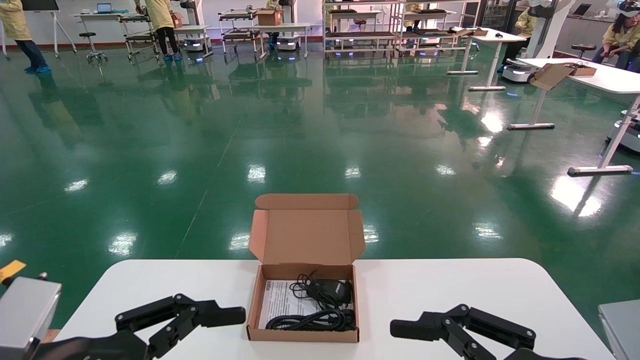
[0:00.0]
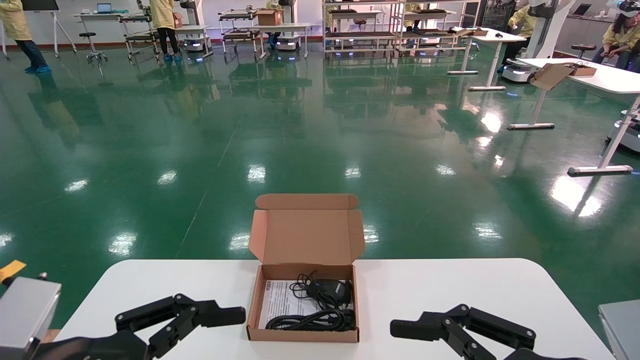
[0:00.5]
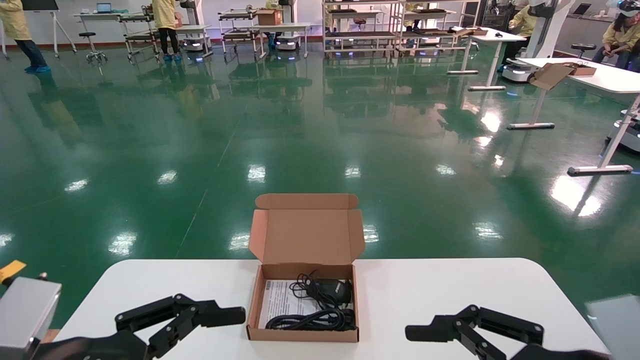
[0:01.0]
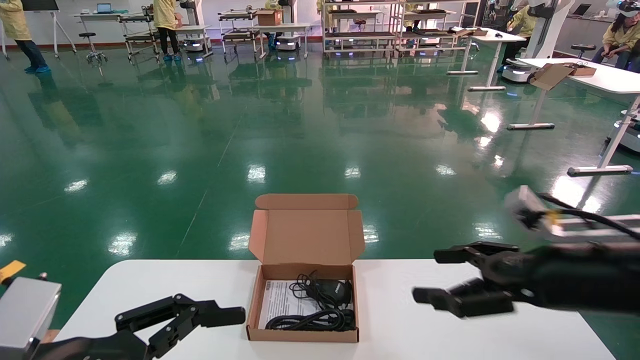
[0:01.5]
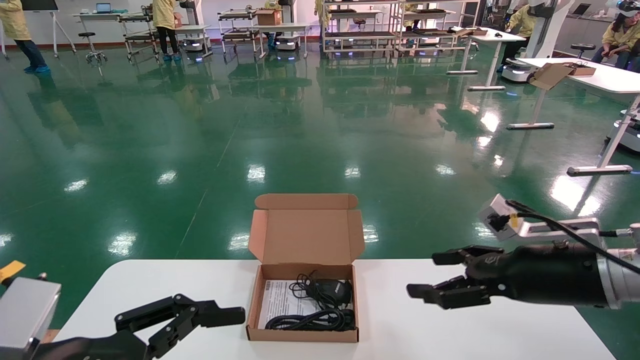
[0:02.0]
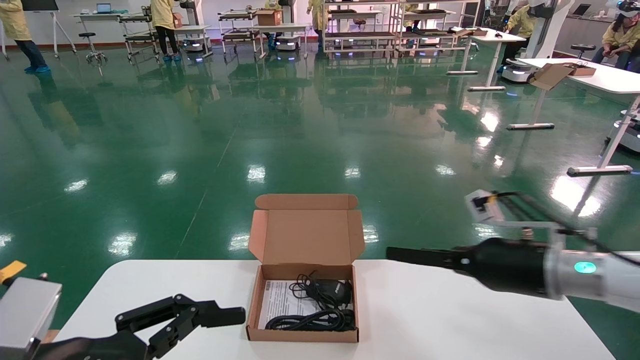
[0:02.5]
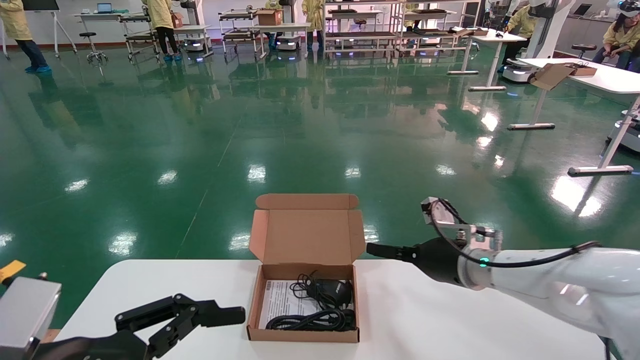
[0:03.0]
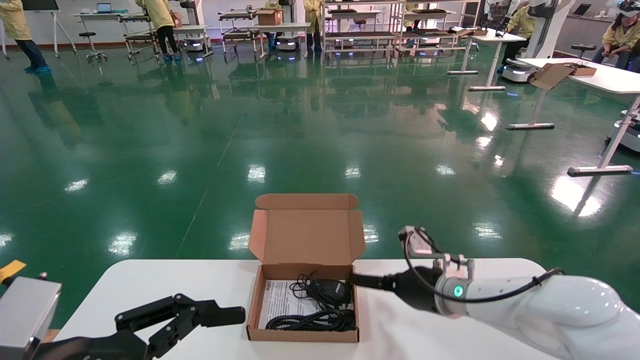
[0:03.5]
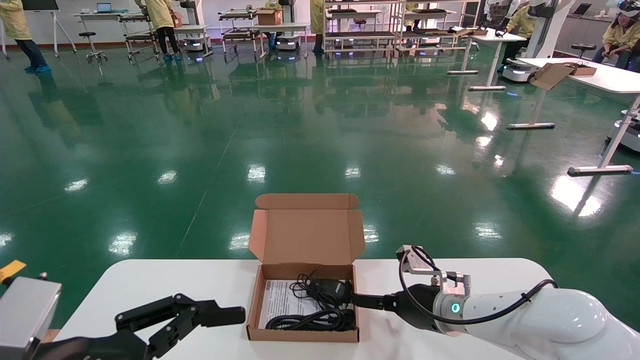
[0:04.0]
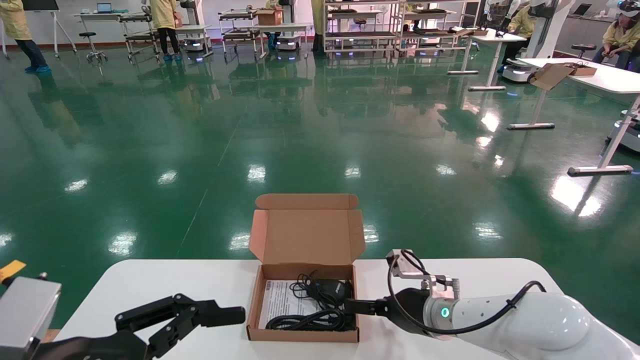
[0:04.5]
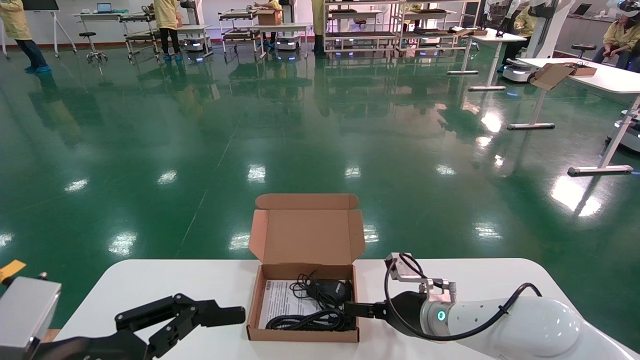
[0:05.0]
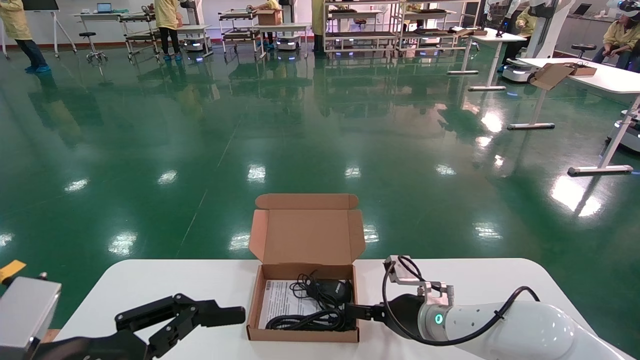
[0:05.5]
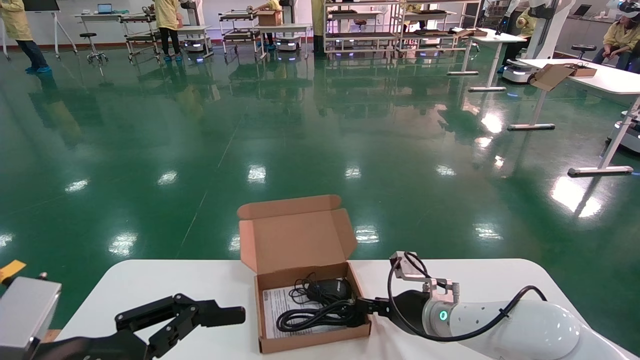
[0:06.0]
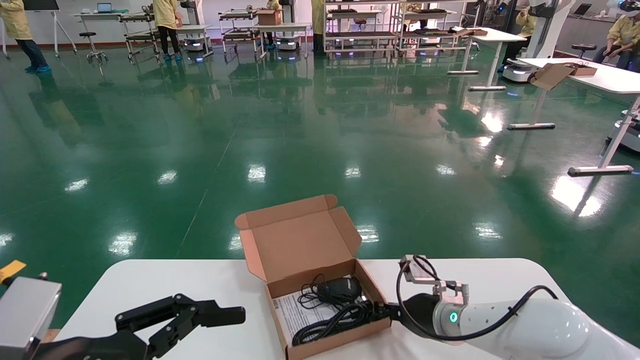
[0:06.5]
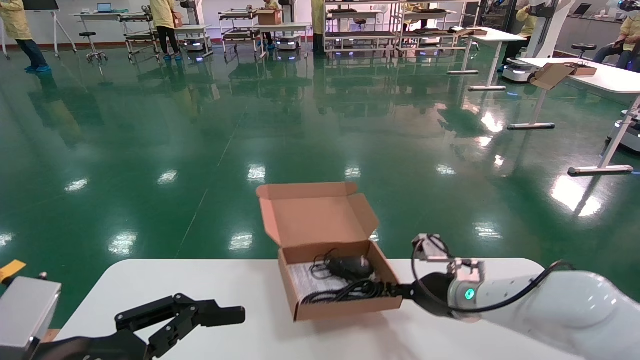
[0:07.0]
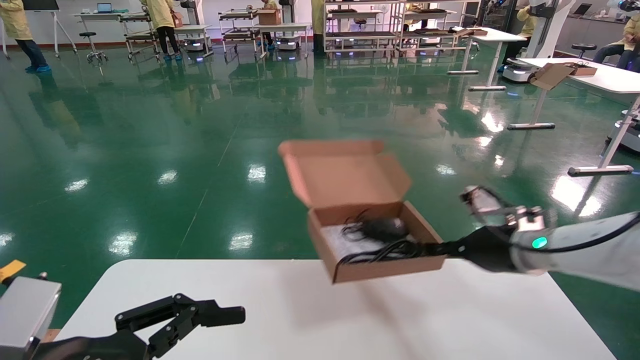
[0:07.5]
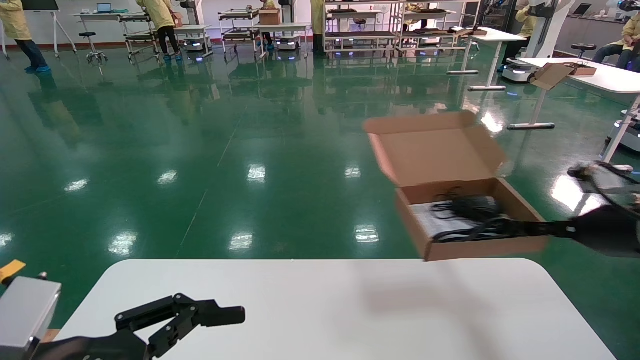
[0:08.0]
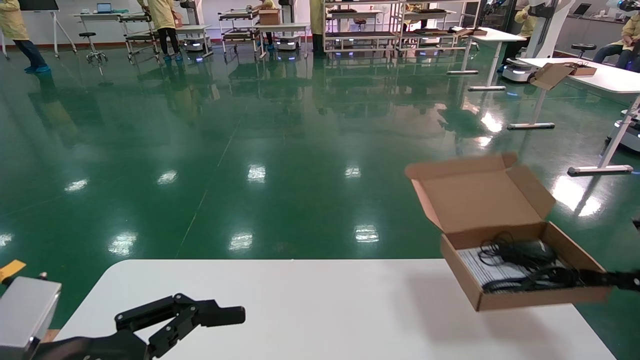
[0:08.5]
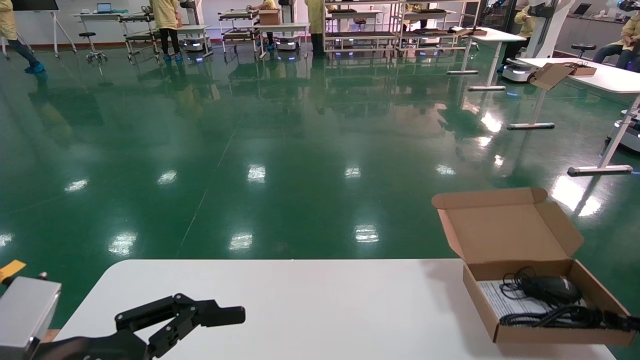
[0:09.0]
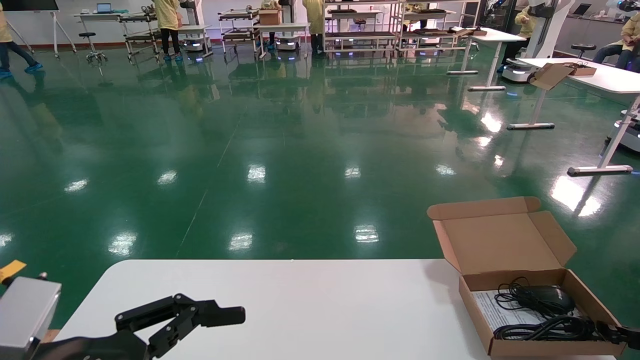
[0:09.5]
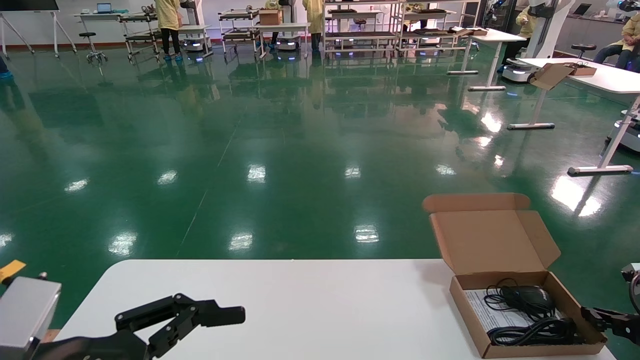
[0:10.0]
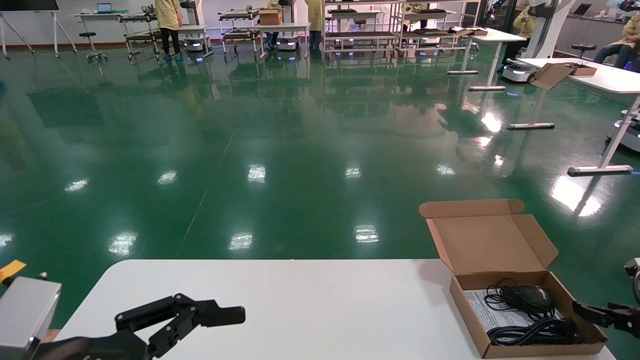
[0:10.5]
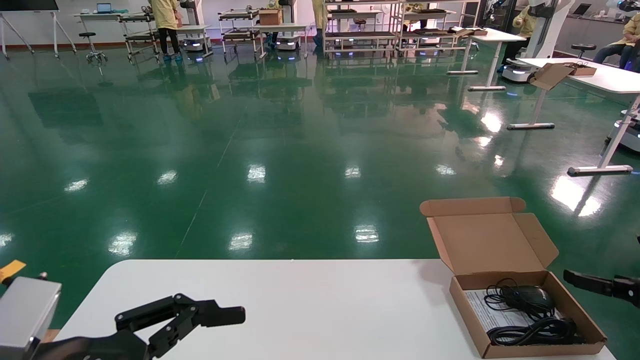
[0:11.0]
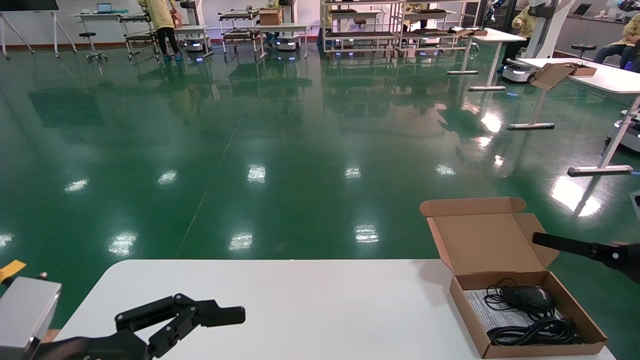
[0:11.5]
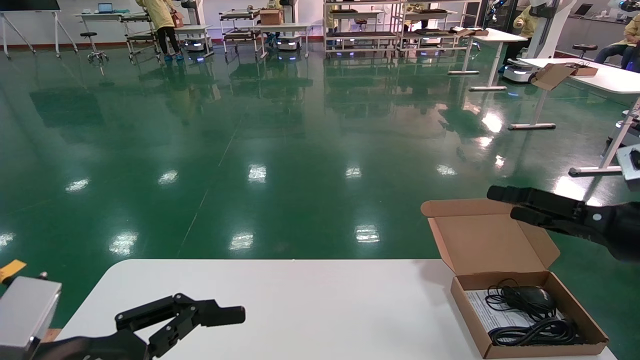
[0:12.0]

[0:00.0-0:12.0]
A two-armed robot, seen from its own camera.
Task of the whole recording: move the position of the storage box with accessories on the table.
Step, 0:01.5 to 0:06.5: Grab and pick up the open mouse box from the accessory packaging area.
Step, 0:07.0 to 0:10.5: Place the open mouse box onto the operation table.
0:00.0 to 0:02.0: The right gripper shifts some 15 cm forward.
0:02.0 to 0:04.0: The right gripper goes roughly 20 cm to the left, forward and downward.
0:04.0 to 0:06.0: The right gripper closes up.
0:06.0 to 0:08.0: The right gripper shifts roughly 30 cm to the right and upward, and closes.
0:08.0 to 0:10.0: The right gripper goes approximately 15 cm downward and to the right.
0:10.0 to 0:12.0: The right gripper is displaced upward, to the left and backward by roughly 20 cm, and opens.

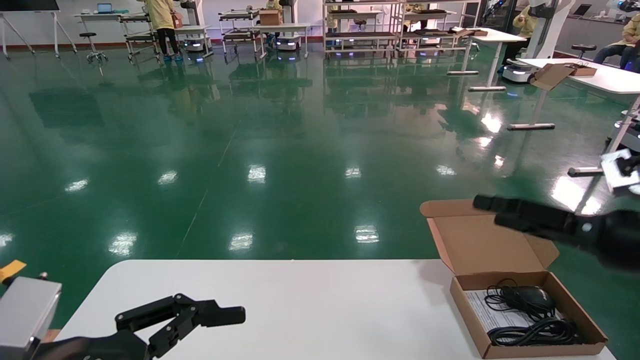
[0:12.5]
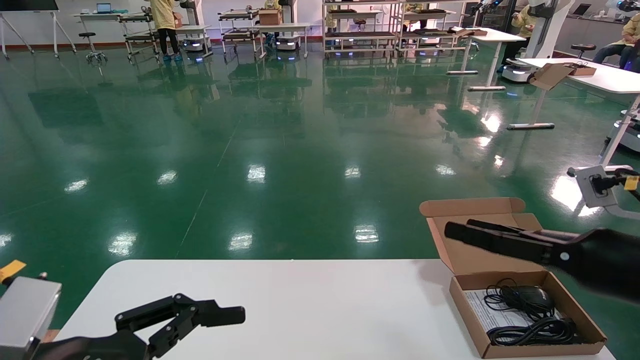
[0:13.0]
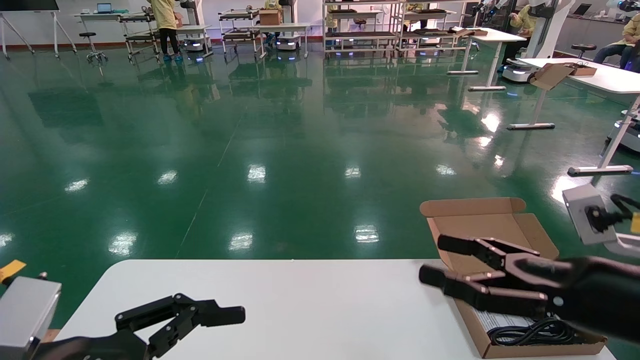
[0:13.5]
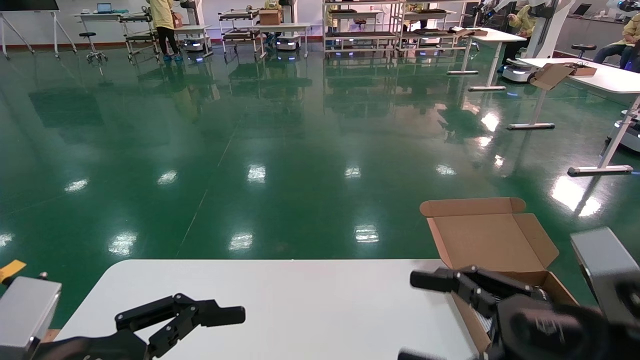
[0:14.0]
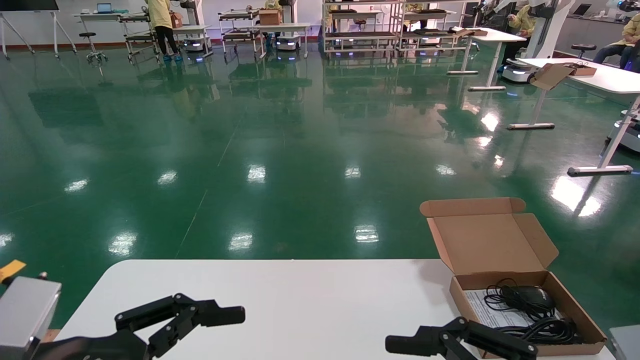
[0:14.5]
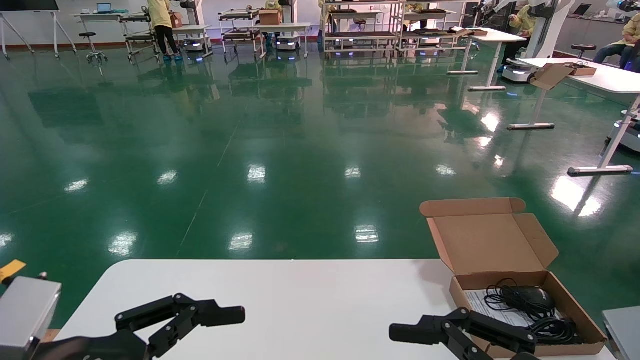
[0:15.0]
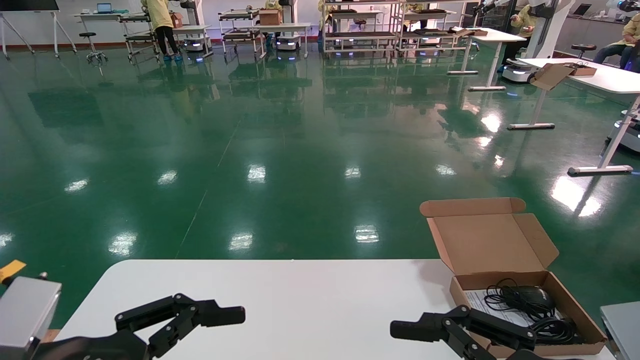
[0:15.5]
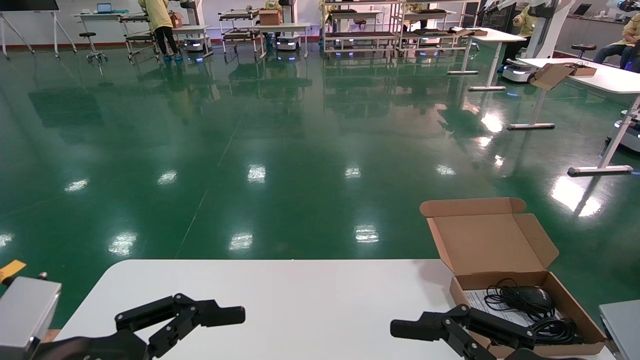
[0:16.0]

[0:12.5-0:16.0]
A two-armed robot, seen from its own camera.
Task of the whole recording: move the position of the storage box with accessories on the table.
0:12.5 to 0:14.5: The right gripper moves backward, to the left and downward, roughly 20 cm.
0:14.5 to 0:16.0: Neither gripper changes place.
